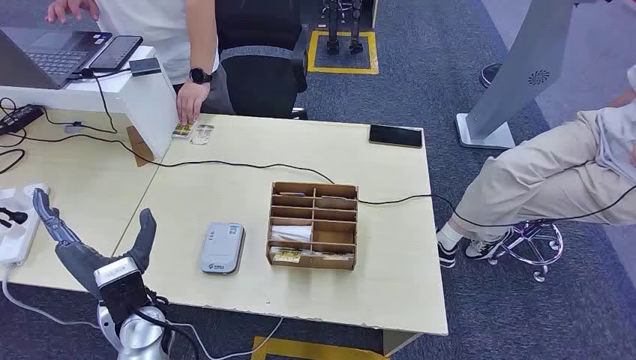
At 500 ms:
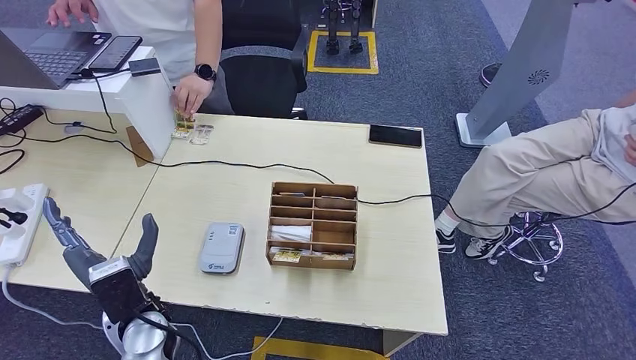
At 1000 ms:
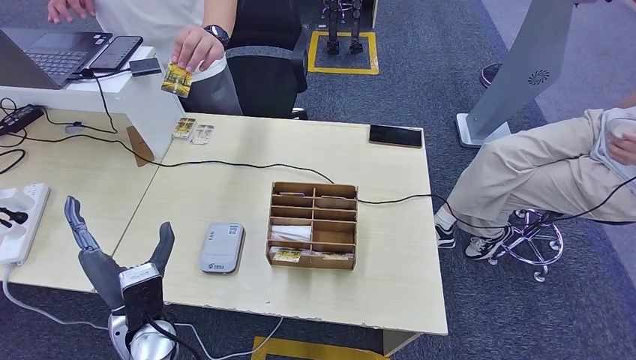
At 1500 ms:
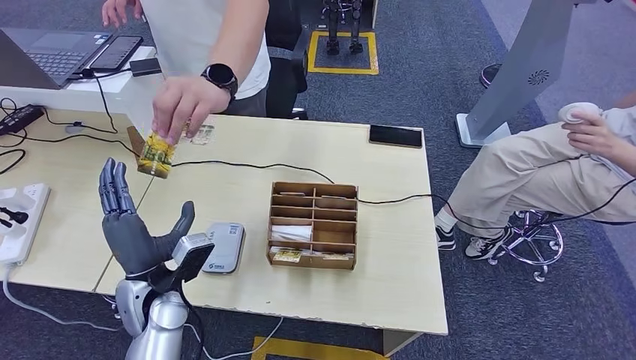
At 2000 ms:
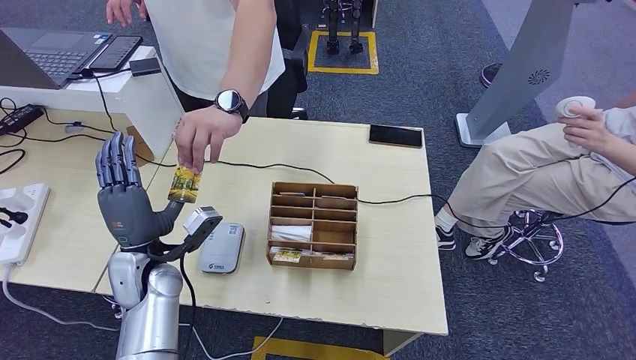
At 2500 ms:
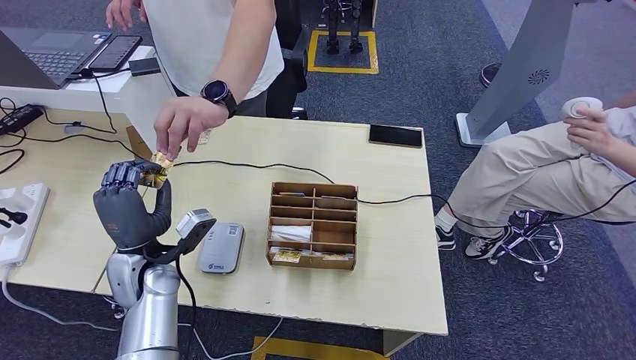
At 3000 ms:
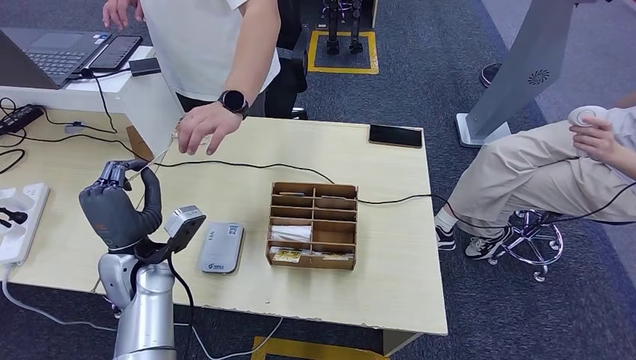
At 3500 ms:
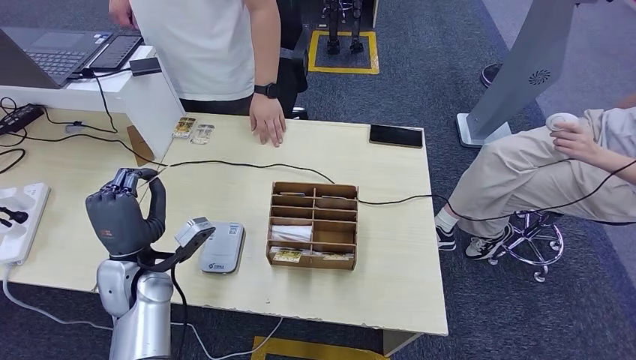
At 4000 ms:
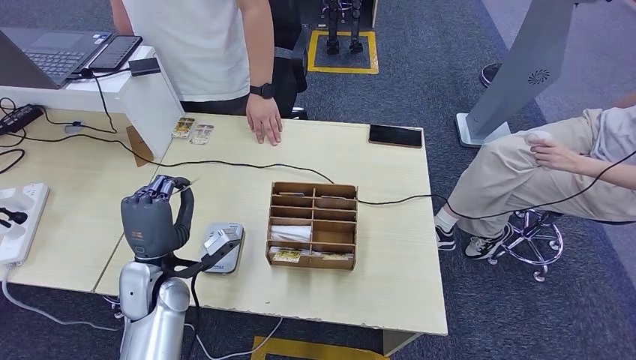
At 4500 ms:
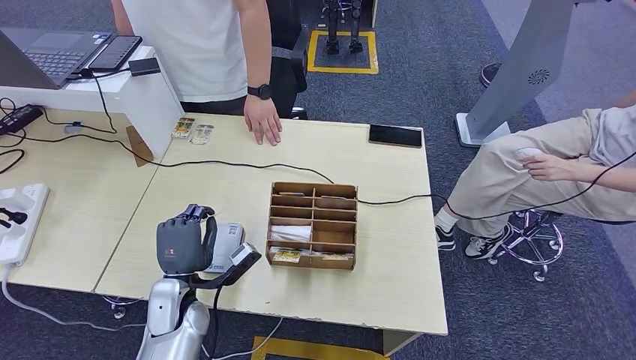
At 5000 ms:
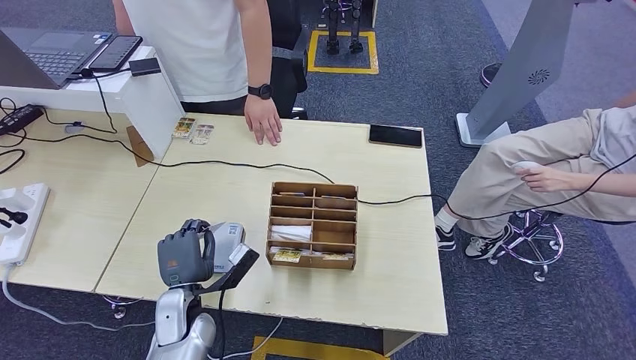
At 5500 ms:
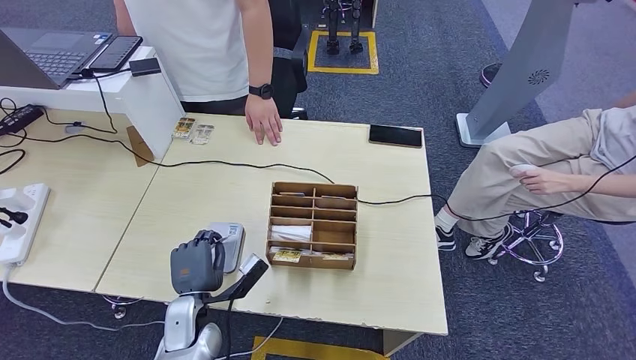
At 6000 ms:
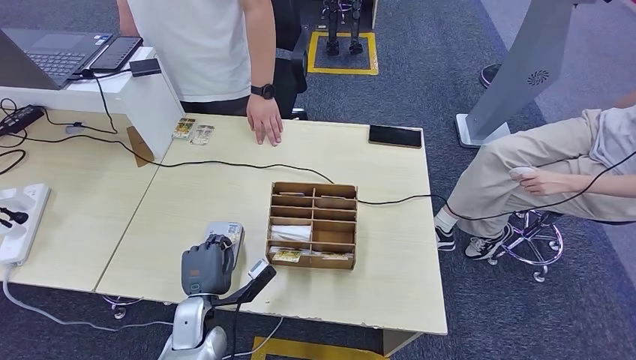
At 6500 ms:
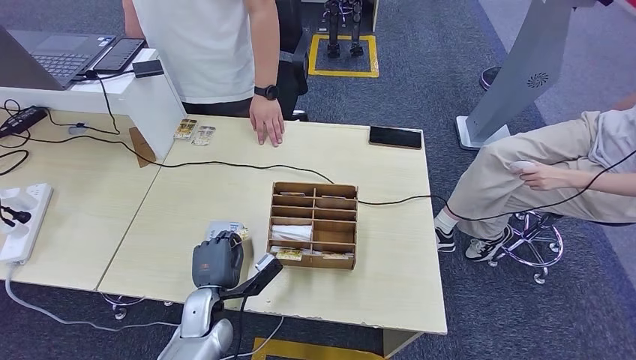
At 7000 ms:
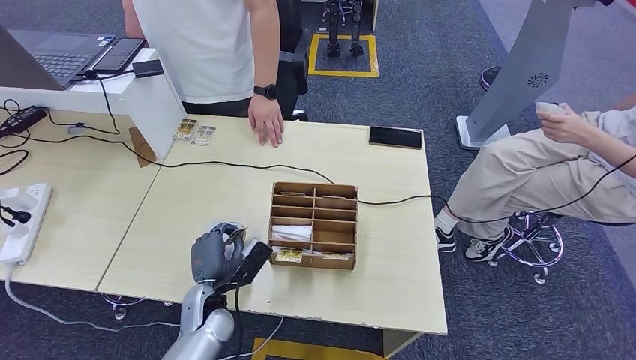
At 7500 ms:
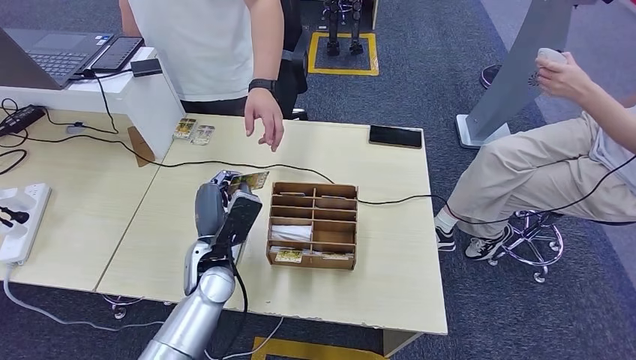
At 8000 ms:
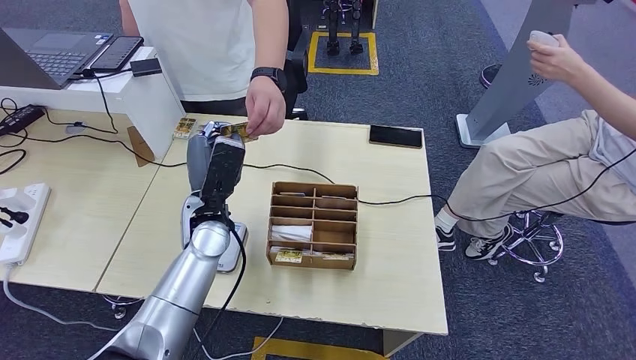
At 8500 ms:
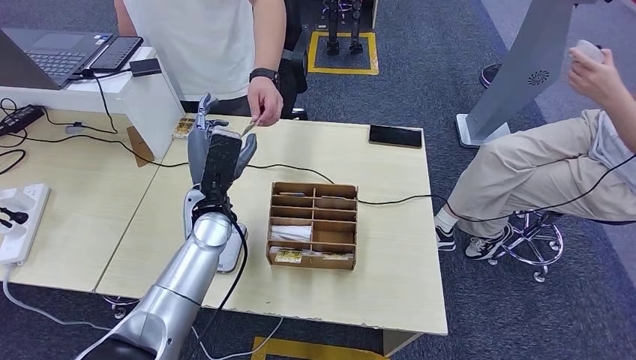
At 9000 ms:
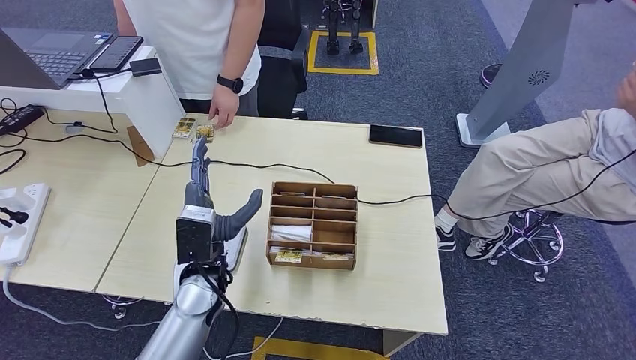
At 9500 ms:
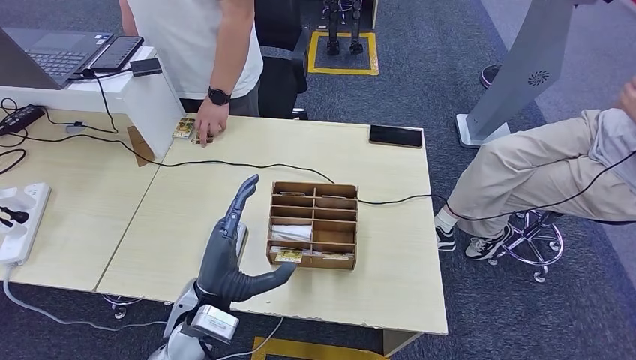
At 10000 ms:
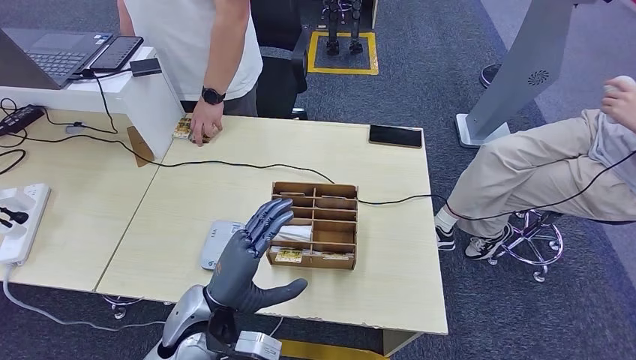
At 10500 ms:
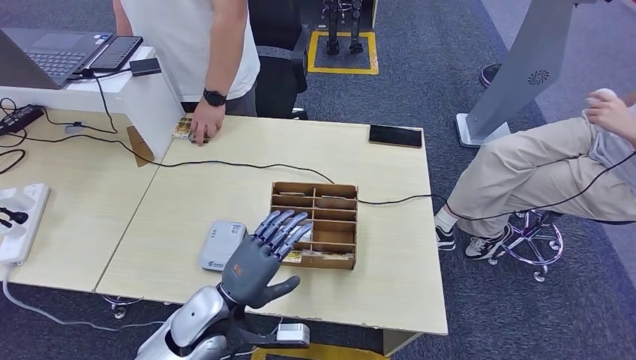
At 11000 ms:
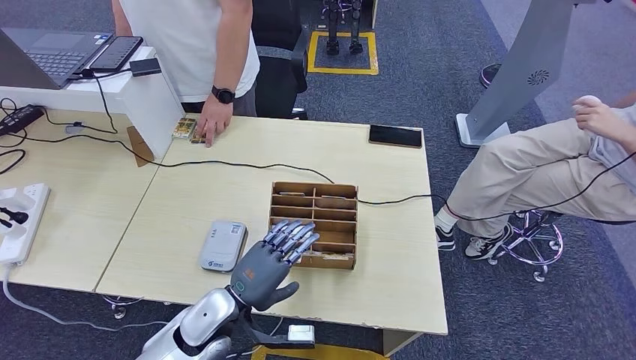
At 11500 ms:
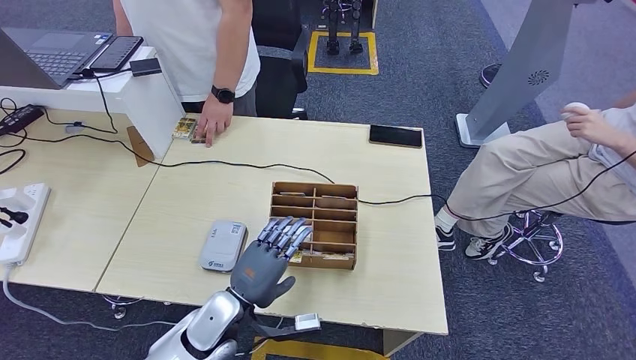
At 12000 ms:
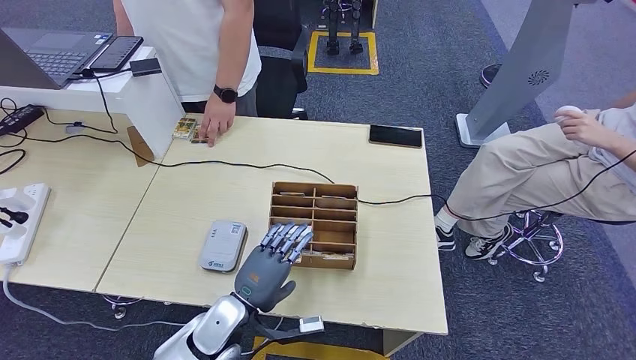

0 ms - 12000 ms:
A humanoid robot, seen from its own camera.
Step, 0 ms - 3000 ms: Take the ID card from the person's hand.
Step, 3500 ms - 6500 ms: Place the ID card on the card reader.
Step, 7000 ms - 8500 ms: Hand the ID card to the person.
2000 ms - 4000 ms: There are only small adjustments of the hands.
4000 ms - 6000 ms: The left hand travels downward by some 10 cm.
6000 ms - 8000 ms: The left hand goes approximately 20 cm upward and forward.
8000 ms - 10000 ms: The left hand is displaced backward by roughly 15 cm.
10000 ms - 12000 ms: The left hand travels downward by some 10 cm.

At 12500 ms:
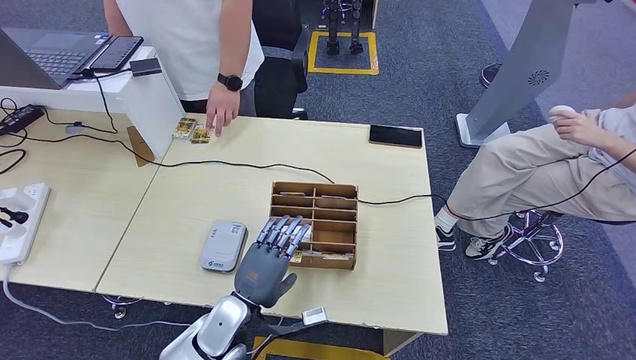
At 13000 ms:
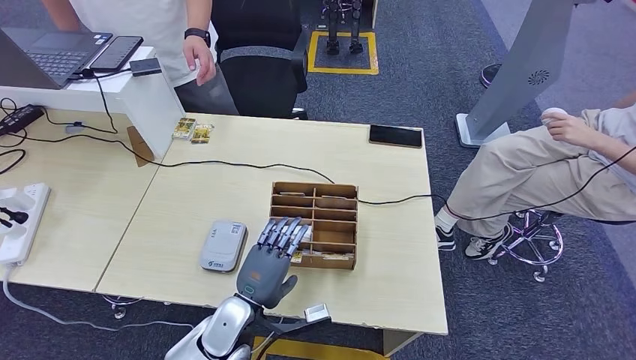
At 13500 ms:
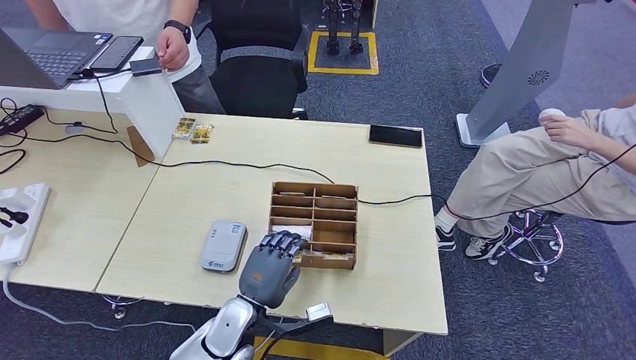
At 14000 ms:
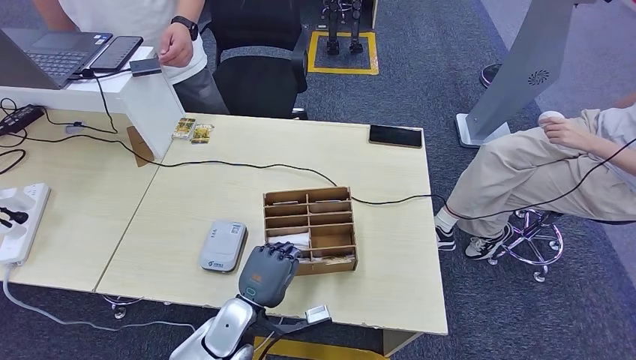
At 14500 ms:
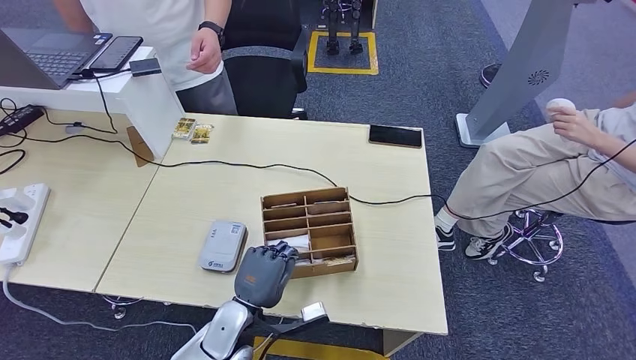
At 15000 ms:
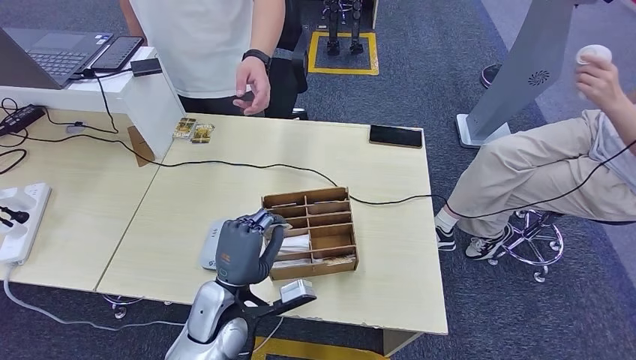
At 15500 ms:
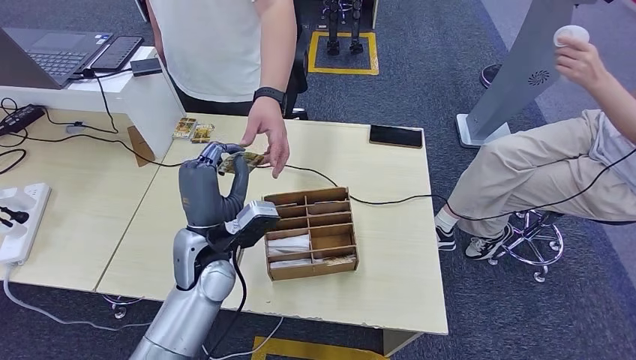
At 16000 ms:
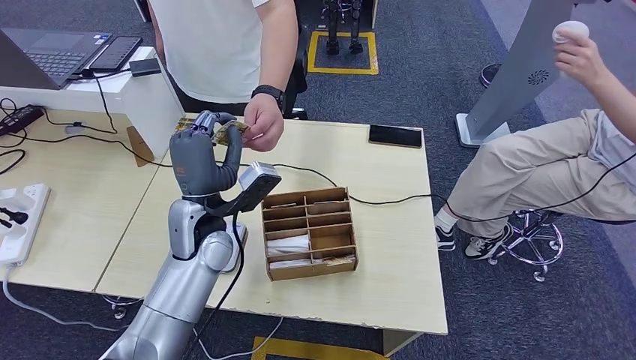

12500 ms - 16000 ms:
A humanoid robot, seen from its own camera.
Step, 12500 ms - 14500 ms: Pick up the room key from the key card box.
Step, 15500 ms - 16000 ms: Hand the room key to the person.
12500 ms - 14500 ms: There are only small adjustments of the hands.
14500 ms - 16000 ms: The left hand moves upward and forward, approximately 20 cm.
